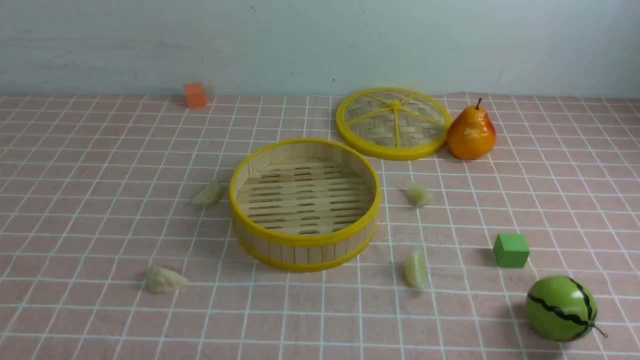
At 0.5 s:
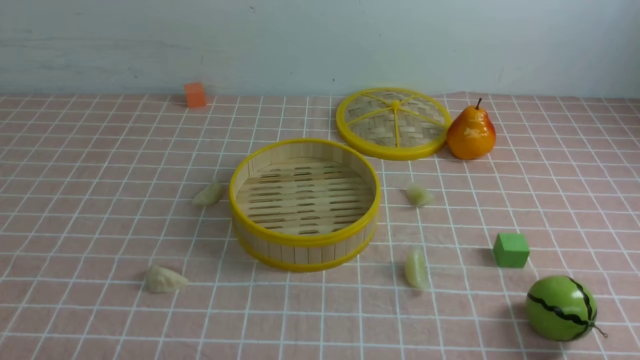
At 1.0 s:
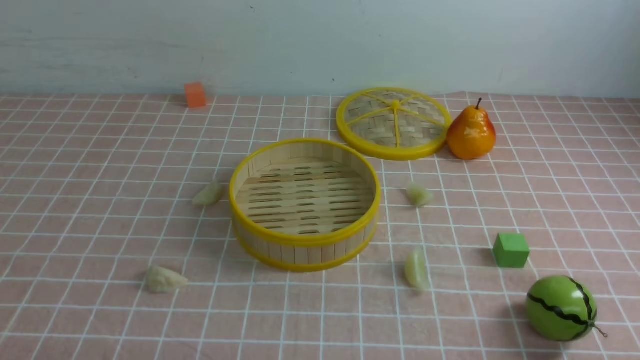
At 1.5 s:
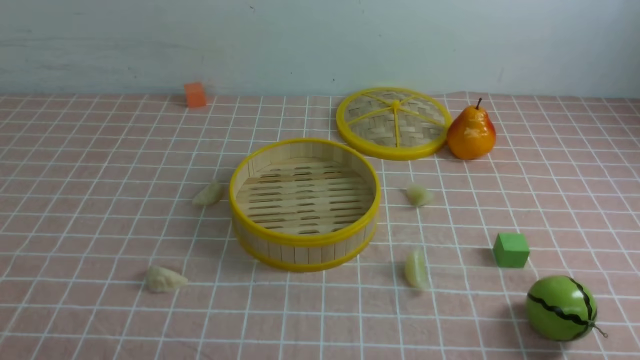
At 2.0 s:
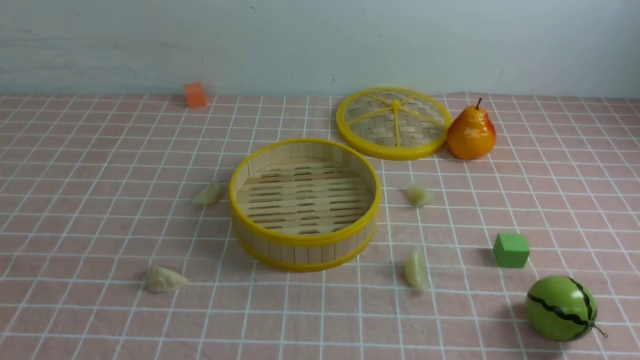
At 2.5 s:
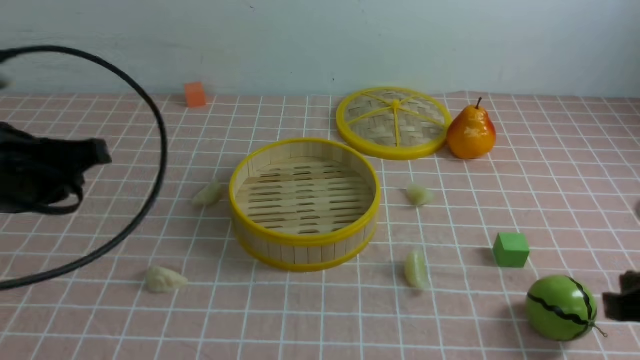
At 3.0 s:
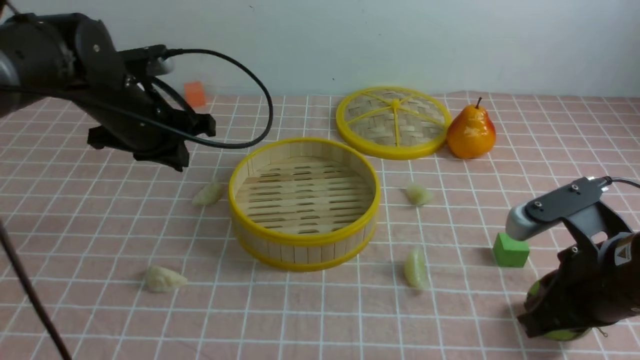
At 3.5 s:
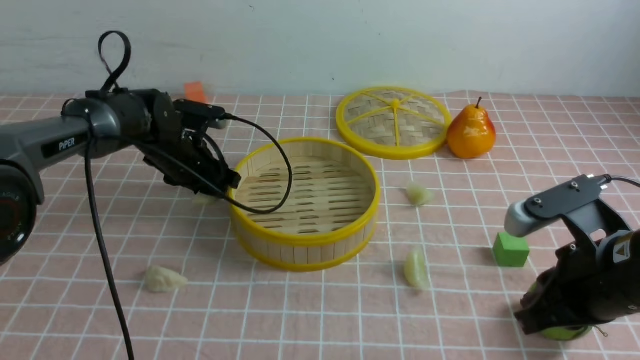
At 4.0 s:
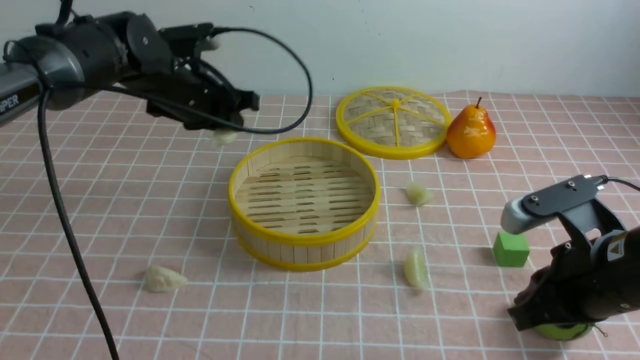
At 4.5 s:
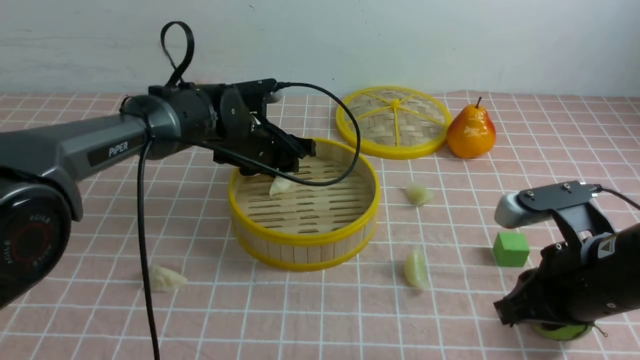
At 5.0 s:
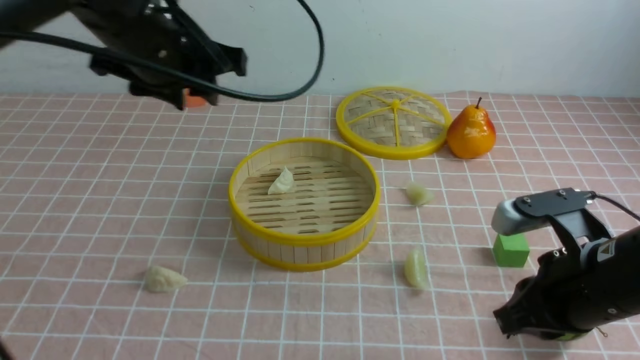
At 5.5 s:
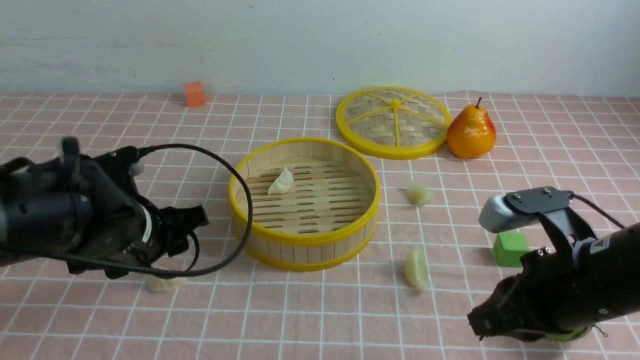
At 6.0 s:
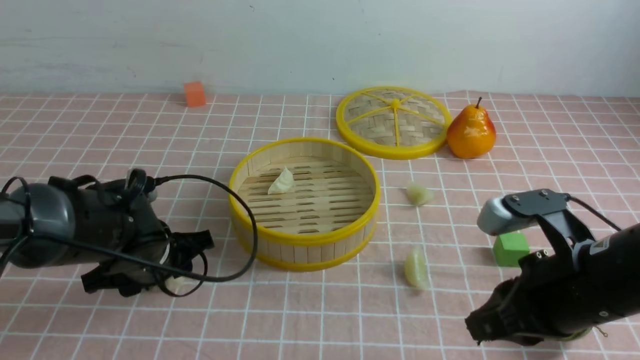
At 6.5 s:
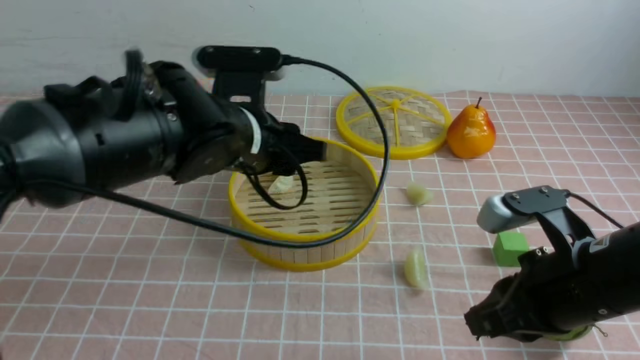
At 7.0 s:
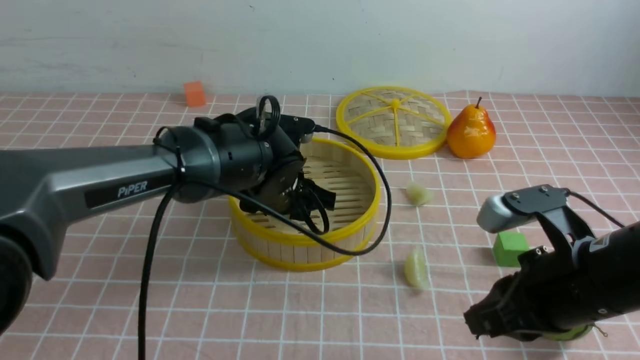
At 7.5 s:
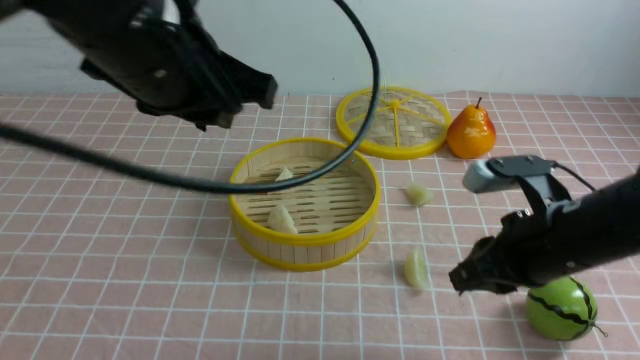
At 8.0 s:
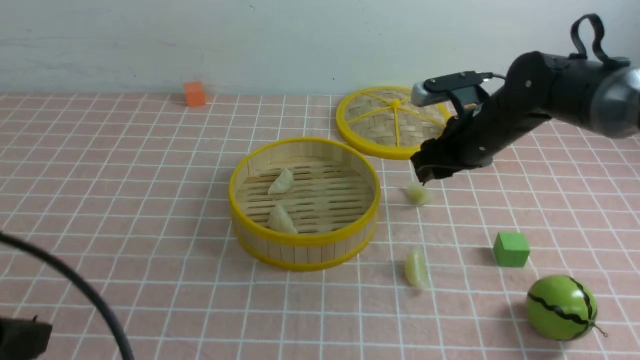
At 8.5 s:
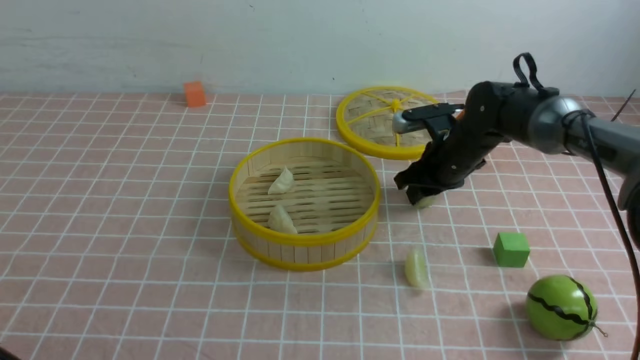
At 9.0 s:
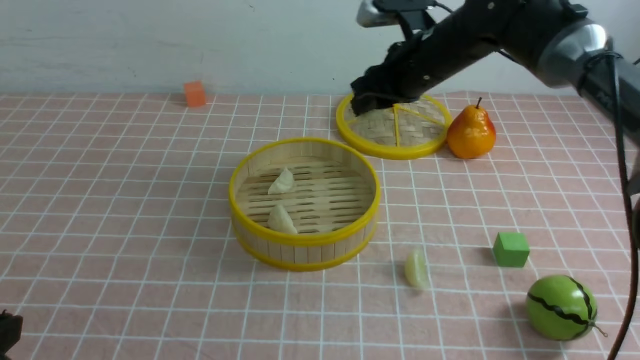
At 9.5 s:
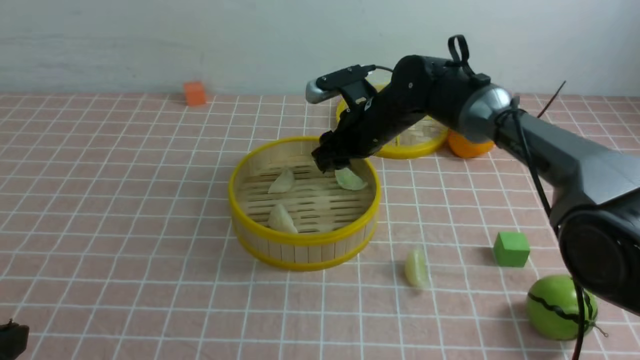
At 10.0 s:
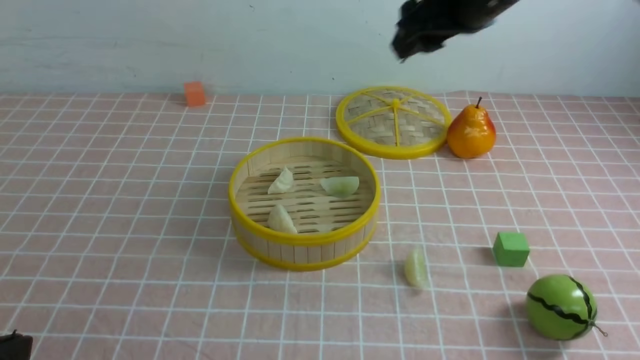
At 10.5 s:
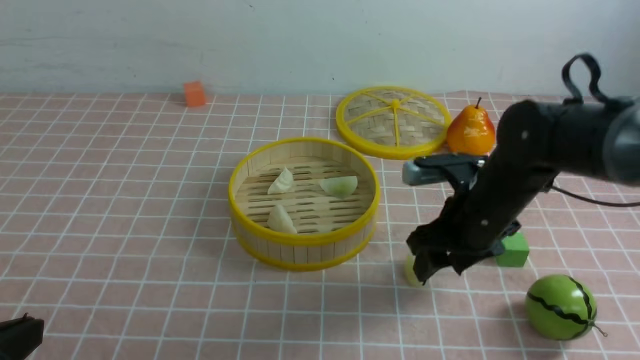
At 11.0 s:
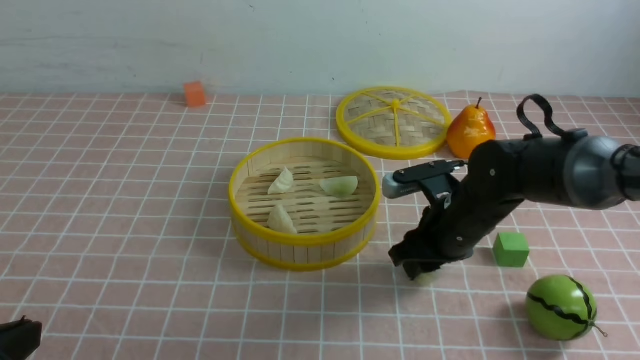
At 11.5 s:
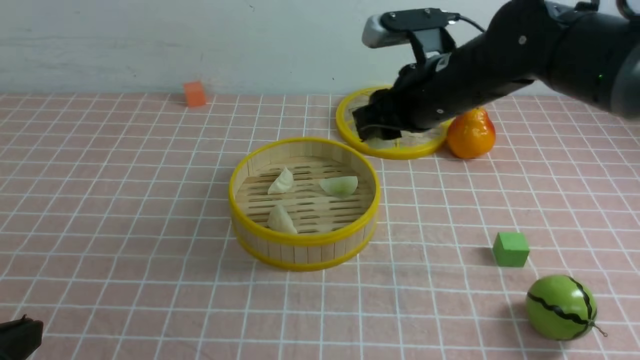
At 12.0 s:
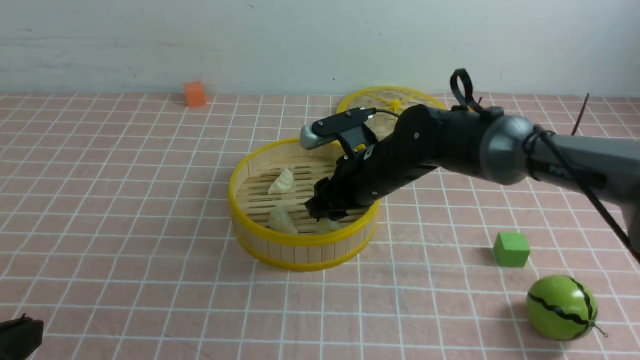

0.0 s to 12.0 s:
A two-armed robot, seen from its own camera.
Task of the whole recording: put the dumplings into the steamer on the table with the pink tablecloth.
Step, 0.0 to 3.5 s: use the left arm to grab a dumpling.
Step, 4.0 to 4.5 s: use the left arm to put the dumpling into the steamer.
Step, 5.0 to 6.0 s: use the left arm to grab a dumpling.
Step, 6.5 to 7.0 s: use the left arm to put the dumpling into the steamer.
Step, 7.5 to 8.5 s: use the right arm to grab a dumpling.
Step, 9.0 to 9.5 s: use the right arm to put the dumpling into the steamer.
Step, 10.0 to 11.0 s: use the right arm to grab a dumpling.
2.0 to 4.0 s: The left gripper travels forward by approximately 40 cm; the right gripper moves forward, to the left and downward, approximately 20 cm.
4.0 to 6.0 s: The left gripper goes some 15 cm backward and downward, and opens up.
6.0 to 8.0 s: The left gripper heads backward and upward, covering about 25 cm, and closes its fingers, while the right gripper is displaced forward by about 25 cm, and opens.
8.0 to 10.0 s: The right gripper moves upward, about 15 cm. The left gripper ends up some 5 cm from where it was.
10.0 to 12.0 s: The right gripper swings up and down, some 20 cm each way, with 2 reversals.

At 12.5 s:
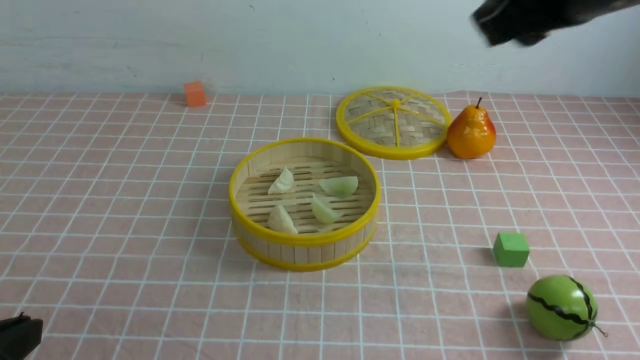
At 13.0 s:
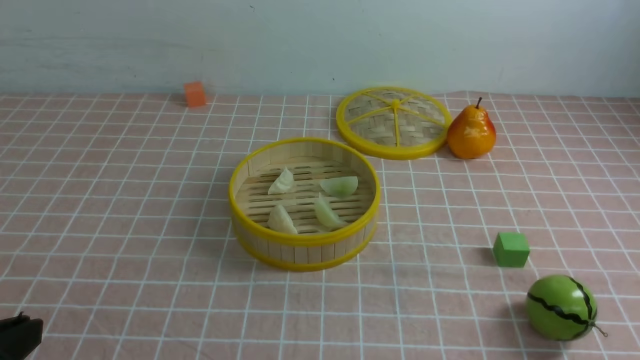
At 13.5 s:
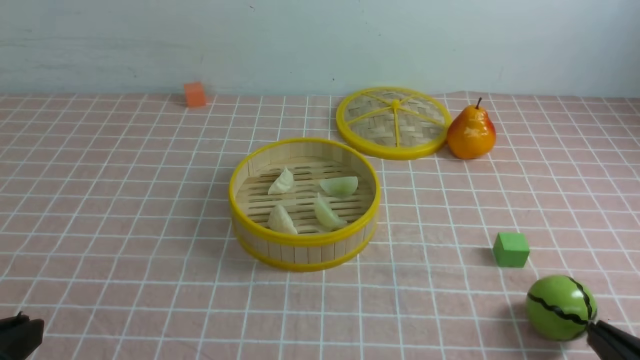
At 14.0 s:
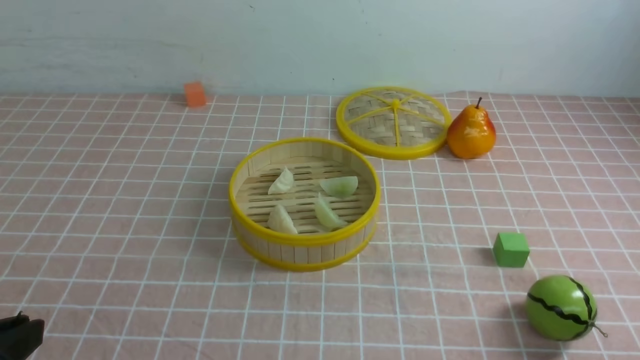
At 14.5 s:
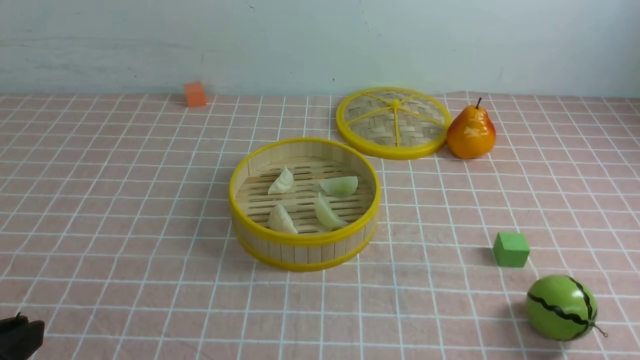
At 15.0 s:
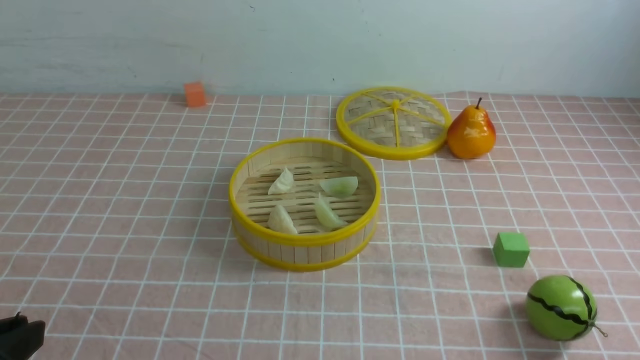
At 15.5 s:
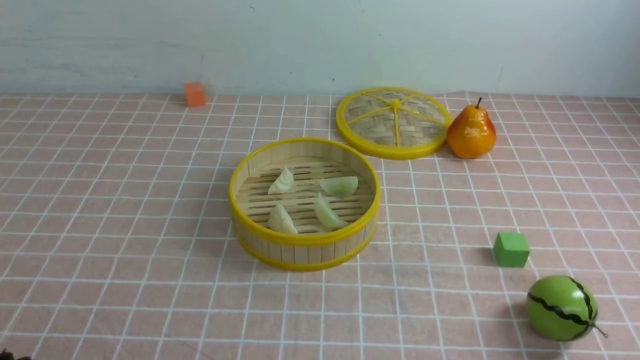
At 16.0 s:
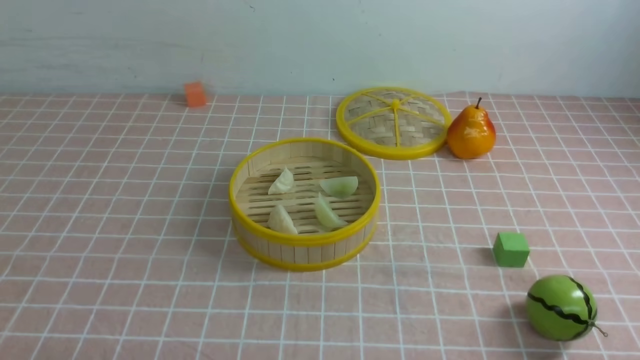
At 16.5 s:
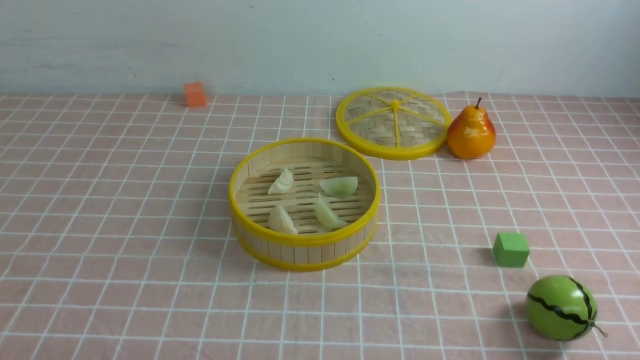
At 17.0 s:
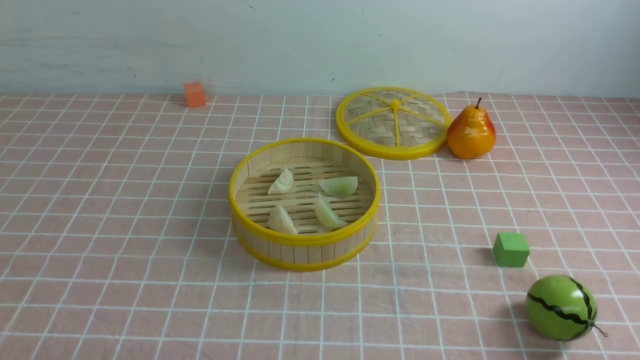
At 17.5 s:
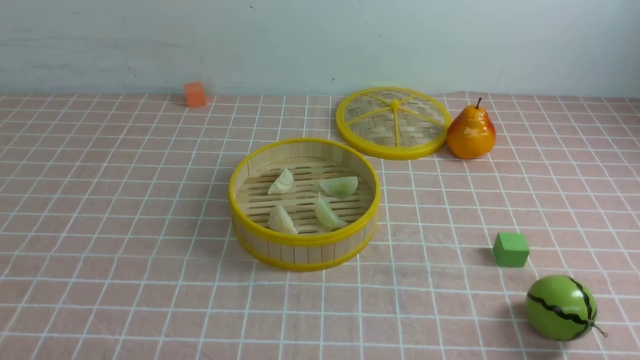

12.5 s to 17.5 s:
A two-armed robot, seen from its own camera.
Task of the whole recording: put the dumplings into the steamer on the table with the pink tablecloth.
12.5 to 15.0 s: The right gripper is displaced downward, backward and to the right by some 40 cm, and closes.
15.0 to 17.5 s: The left gripper heads downward, covering about 10 cm.
